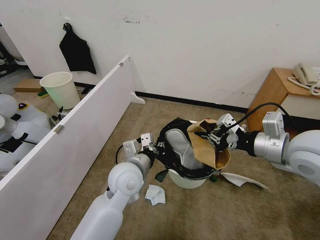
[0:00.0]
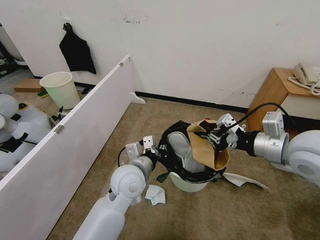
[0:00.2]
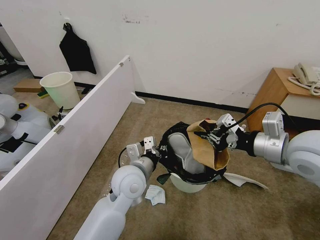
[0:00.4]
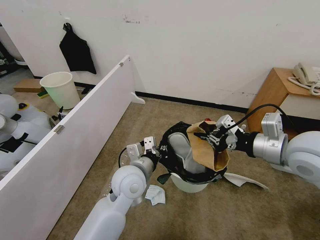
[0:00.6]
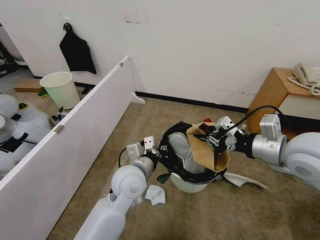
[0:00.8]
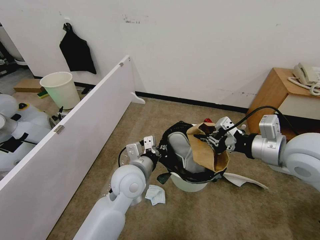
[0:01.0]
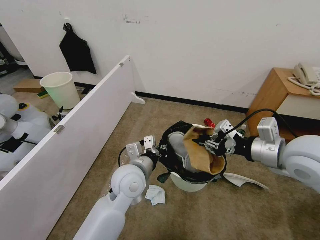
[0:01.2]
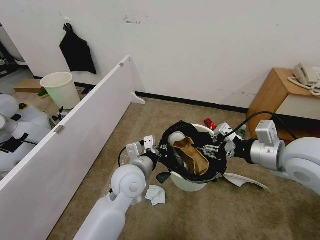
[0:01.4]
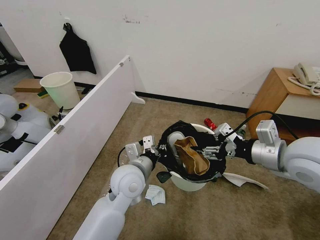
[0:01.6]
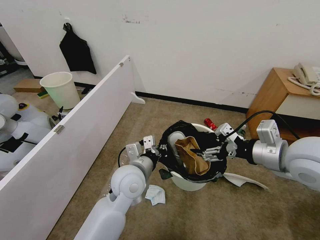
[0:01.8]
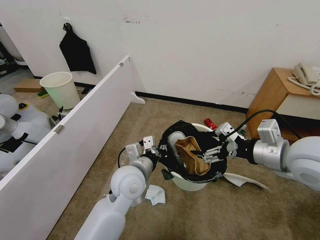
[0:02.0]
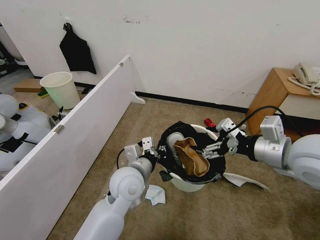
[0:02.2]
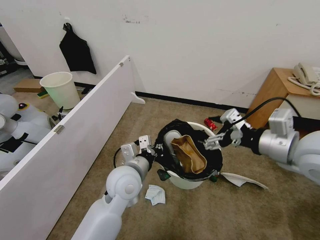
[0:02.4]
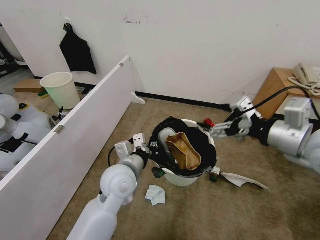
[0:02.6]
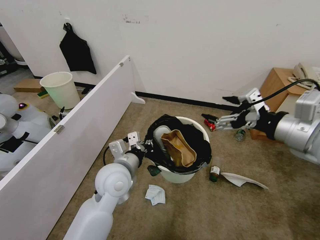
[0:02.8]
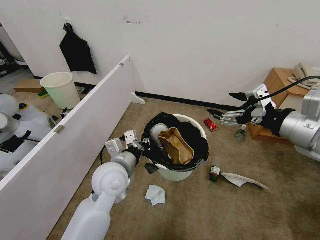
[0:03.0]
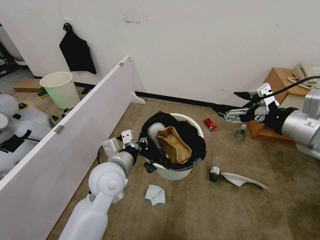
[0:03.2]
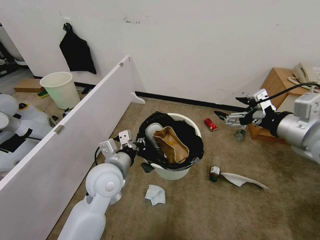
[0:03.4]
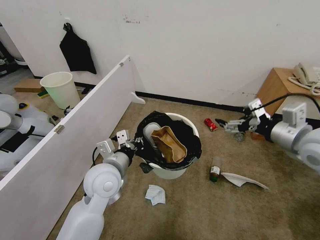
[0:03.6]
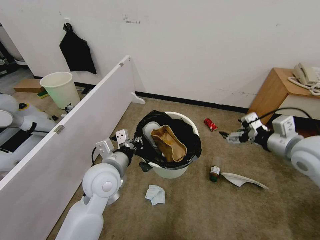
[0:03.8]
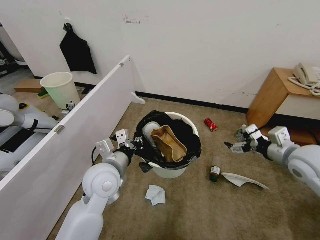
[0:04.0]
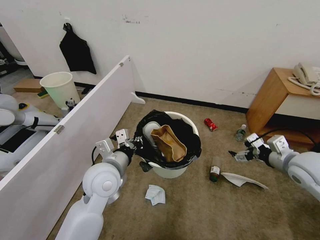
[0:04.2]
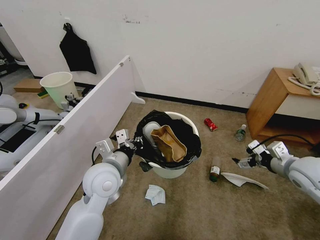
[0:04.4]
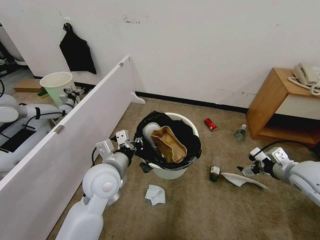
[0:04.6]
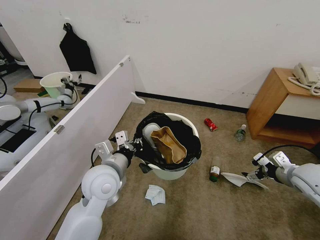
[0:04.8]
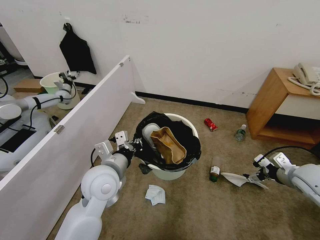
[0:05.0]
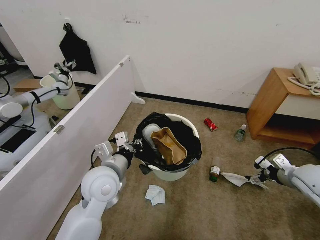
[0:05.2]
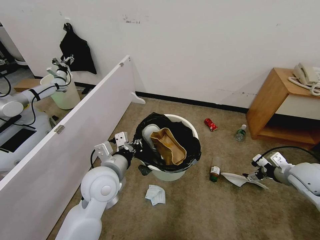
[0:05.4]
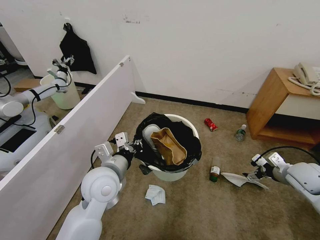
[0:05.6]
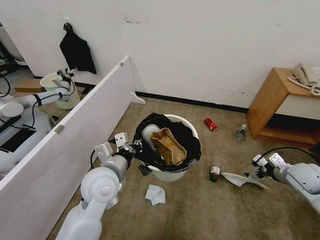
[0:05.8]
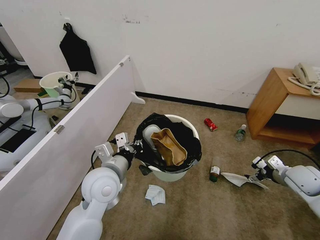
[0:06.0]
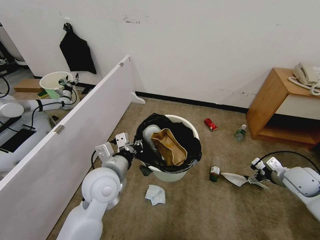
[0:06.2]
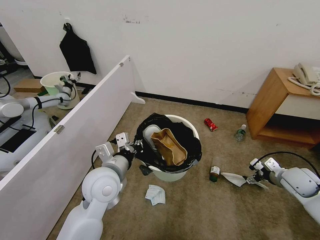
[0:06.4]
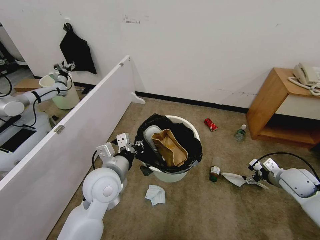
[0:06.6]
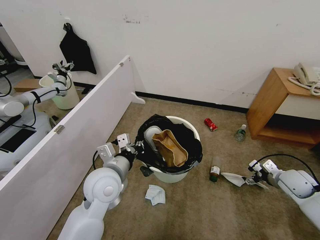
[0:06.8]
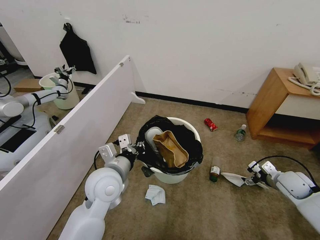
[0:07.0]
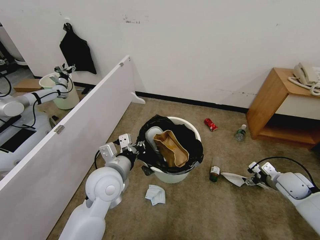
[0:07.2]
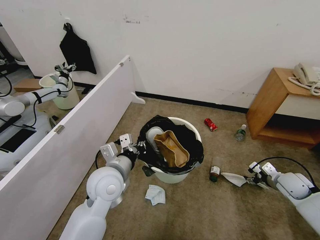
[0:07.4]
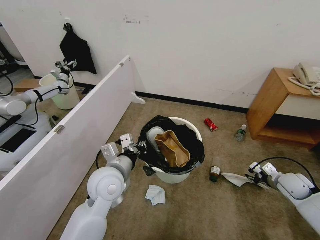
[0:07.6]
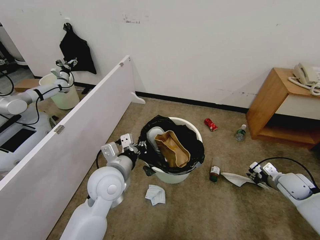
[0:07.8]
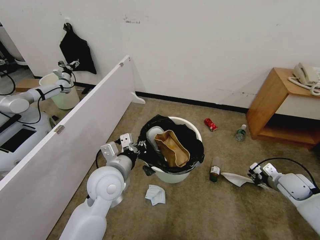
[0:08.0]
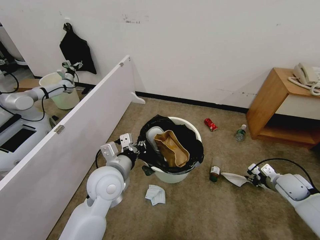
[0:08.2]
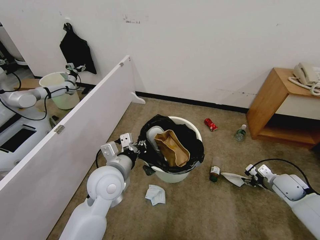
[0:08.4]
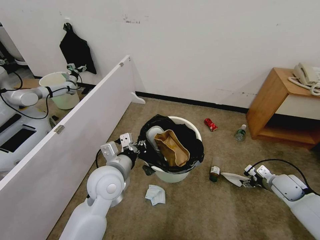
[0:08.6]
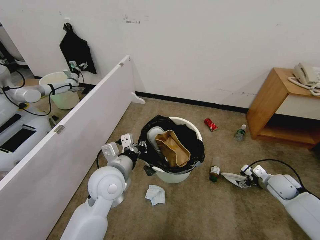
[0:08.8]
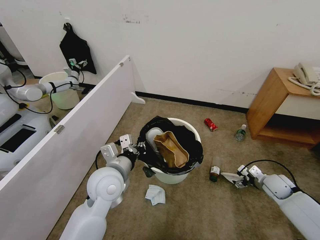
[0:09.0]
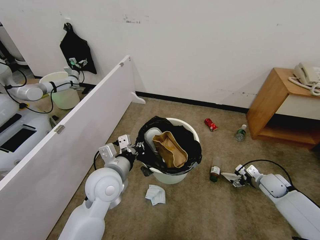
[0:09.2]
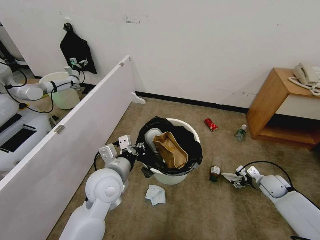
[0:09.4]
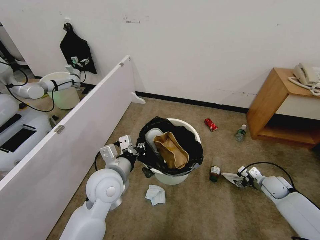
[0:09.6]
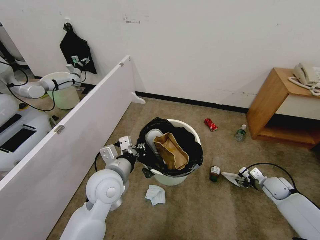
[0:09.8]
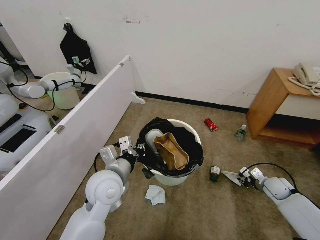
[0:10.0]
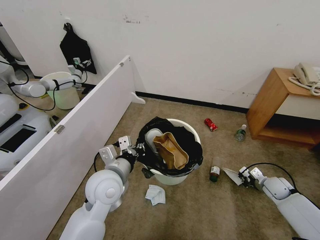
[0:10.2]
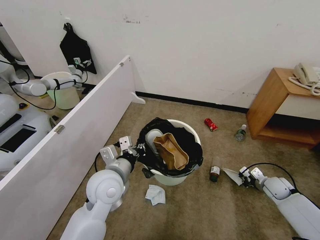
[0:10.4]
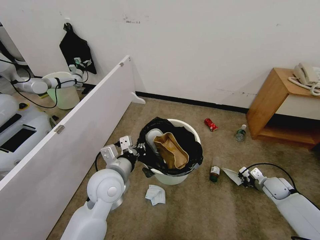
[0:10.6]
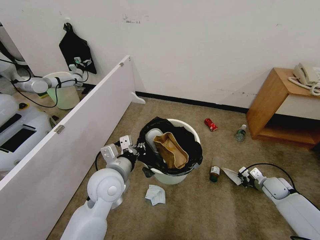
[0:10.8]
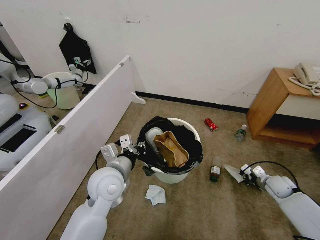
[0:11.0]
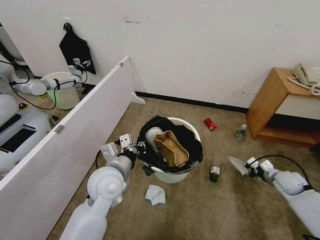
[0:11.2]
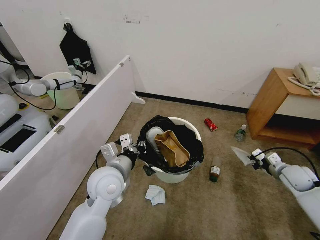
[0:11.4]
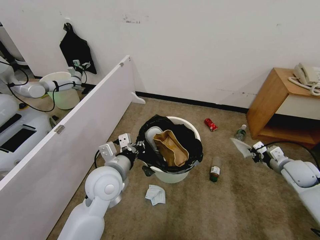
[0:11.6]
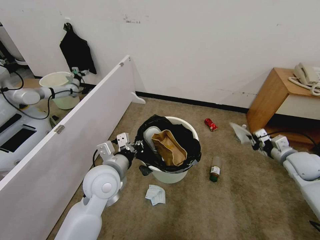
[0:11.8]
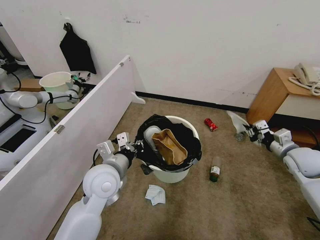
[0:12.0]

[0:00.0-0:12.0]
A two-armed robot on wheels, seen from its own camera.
Task of the whole recording: Pick up the trash bin, then pick up the garbage from the floor and place it into the trash bin.
0:00.0 to 0:01.6: The right gripper opens up.
0:01.6 to 0:03.0: The right gripper heads upward, covering approximately 5 cm, and opens up.
0:03.0 to 0:04.4: The right gripper goes about 20 cm downward and to the right.
0:04.4 to 0:06.0: The right gripper goes approximately 10 cm downward and to the right.
0:06.0 to 0:07.6: The right gripper travels downward by roughly 5 cm, and closes its fingers.
0:07.6 to 0:09.0: The right gripper opens its fingers.
0:09.0 to 0:10.4: The right gripper closes its fingers.
0:10.4 to 0:12.0: The right gripper moves upward, about 20 cm.

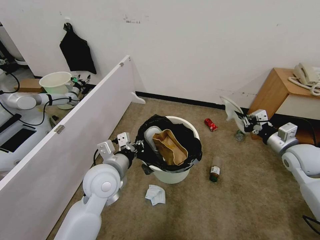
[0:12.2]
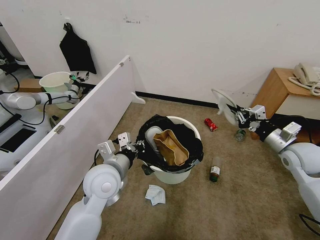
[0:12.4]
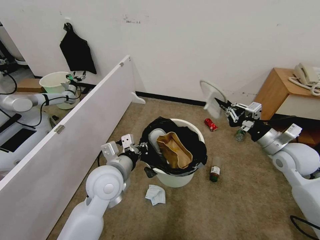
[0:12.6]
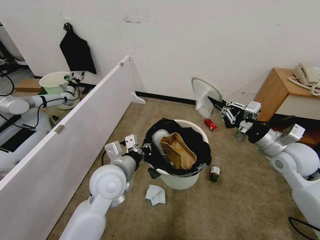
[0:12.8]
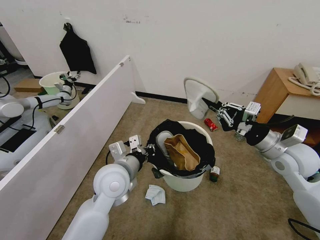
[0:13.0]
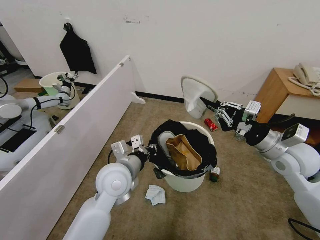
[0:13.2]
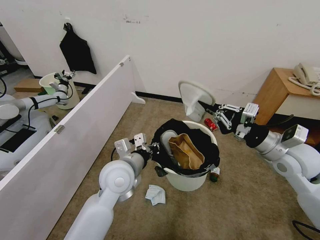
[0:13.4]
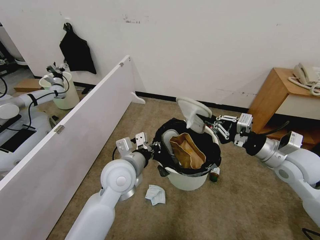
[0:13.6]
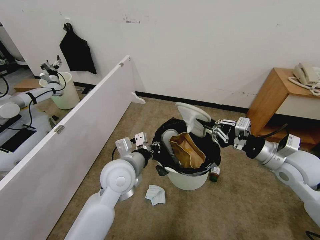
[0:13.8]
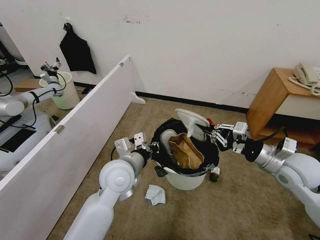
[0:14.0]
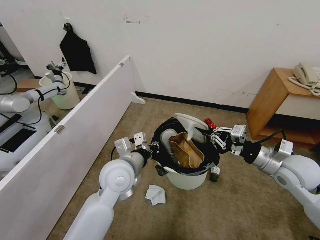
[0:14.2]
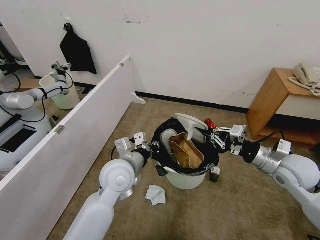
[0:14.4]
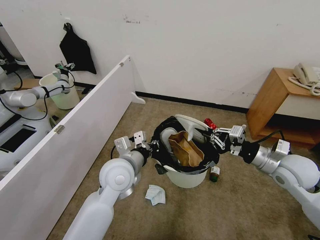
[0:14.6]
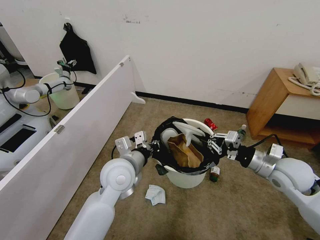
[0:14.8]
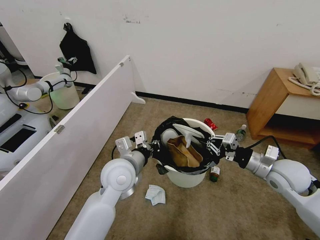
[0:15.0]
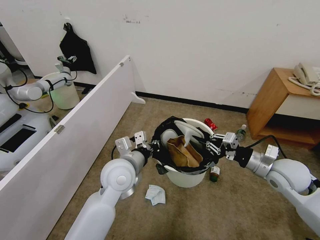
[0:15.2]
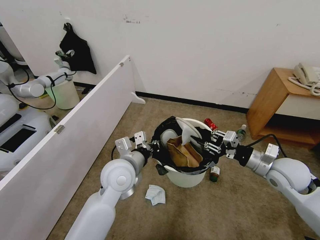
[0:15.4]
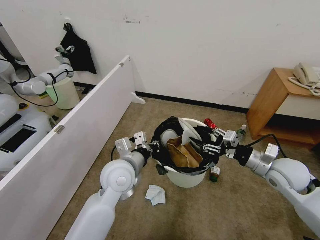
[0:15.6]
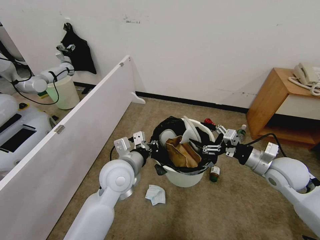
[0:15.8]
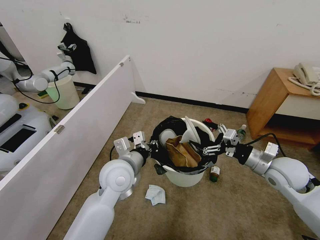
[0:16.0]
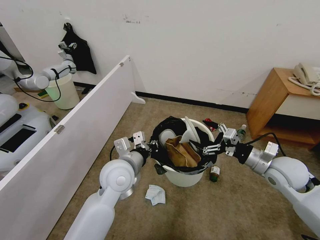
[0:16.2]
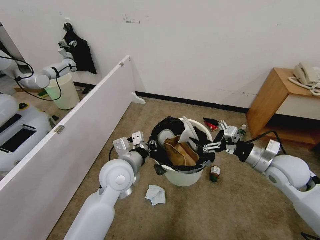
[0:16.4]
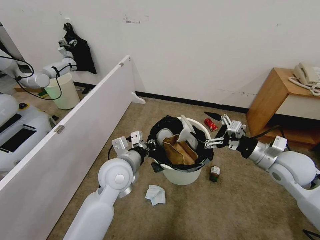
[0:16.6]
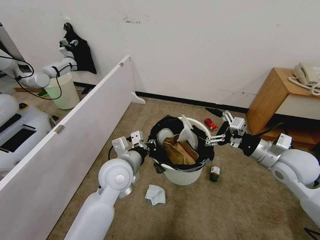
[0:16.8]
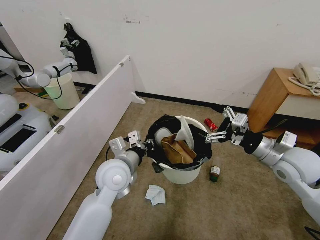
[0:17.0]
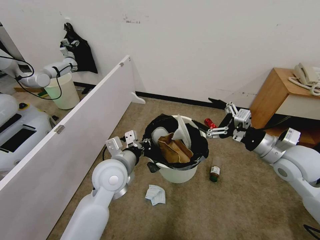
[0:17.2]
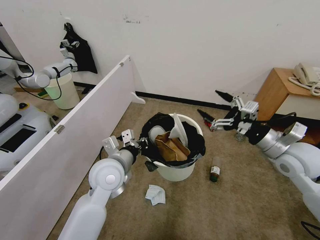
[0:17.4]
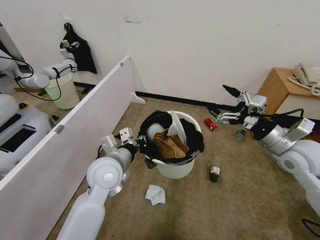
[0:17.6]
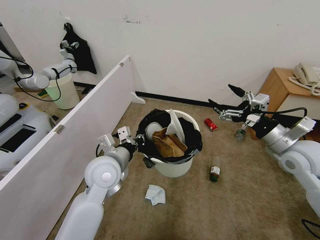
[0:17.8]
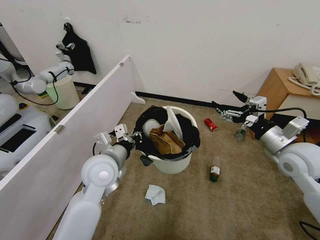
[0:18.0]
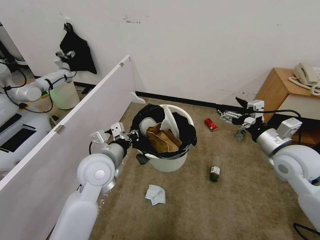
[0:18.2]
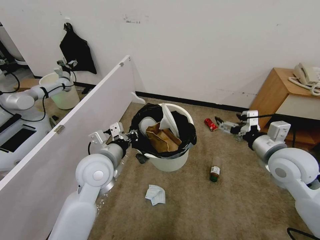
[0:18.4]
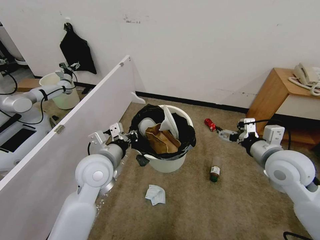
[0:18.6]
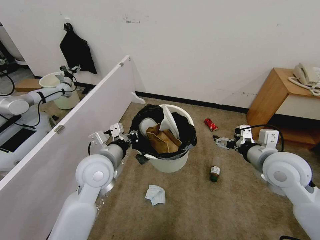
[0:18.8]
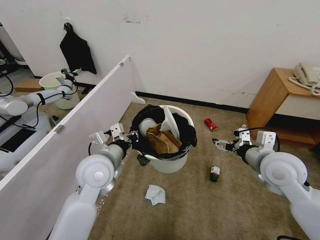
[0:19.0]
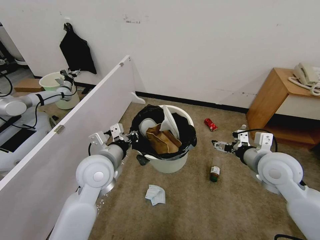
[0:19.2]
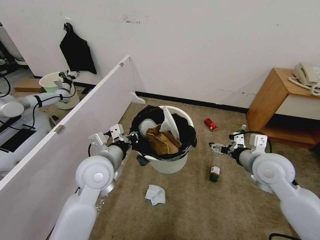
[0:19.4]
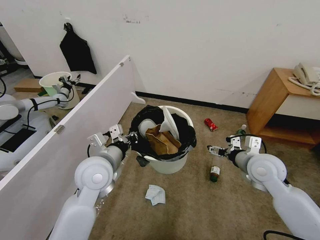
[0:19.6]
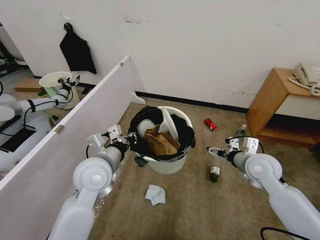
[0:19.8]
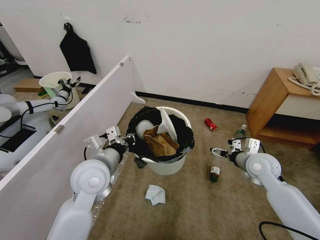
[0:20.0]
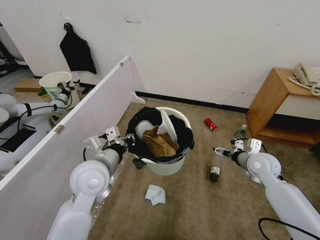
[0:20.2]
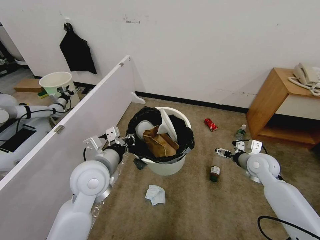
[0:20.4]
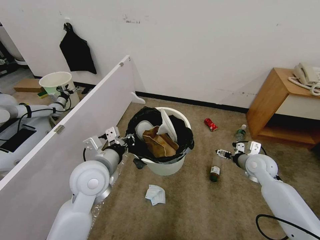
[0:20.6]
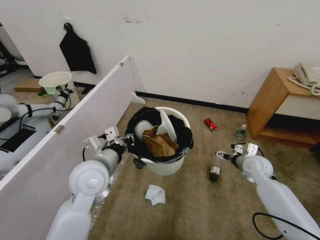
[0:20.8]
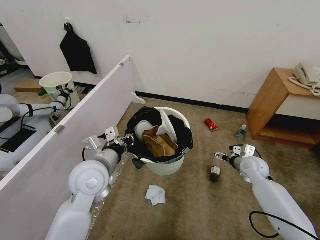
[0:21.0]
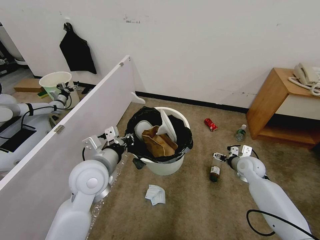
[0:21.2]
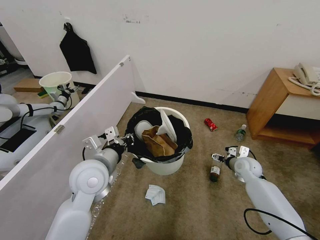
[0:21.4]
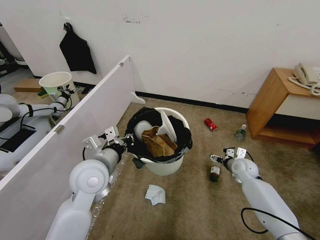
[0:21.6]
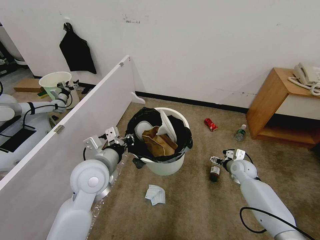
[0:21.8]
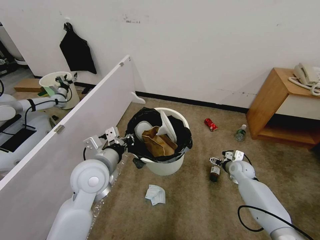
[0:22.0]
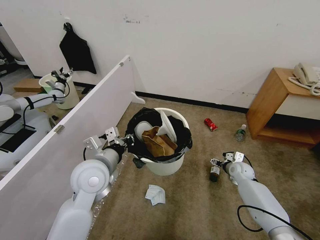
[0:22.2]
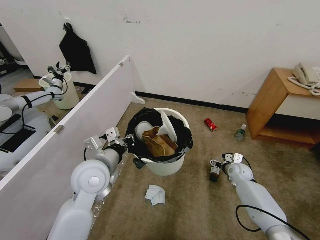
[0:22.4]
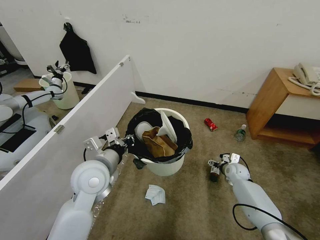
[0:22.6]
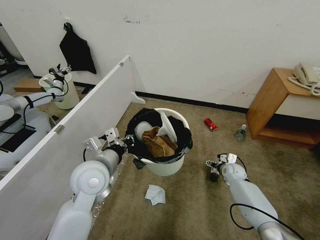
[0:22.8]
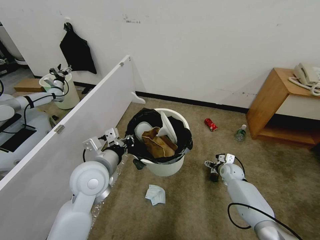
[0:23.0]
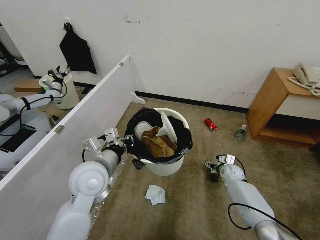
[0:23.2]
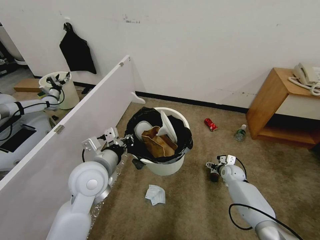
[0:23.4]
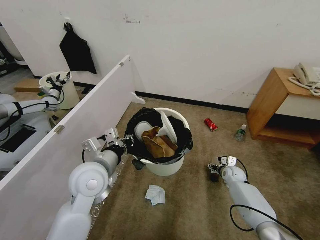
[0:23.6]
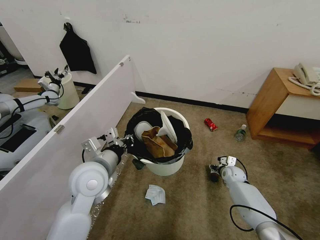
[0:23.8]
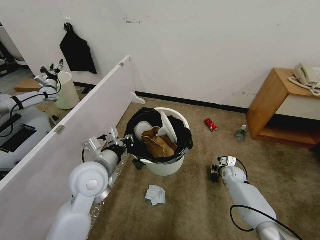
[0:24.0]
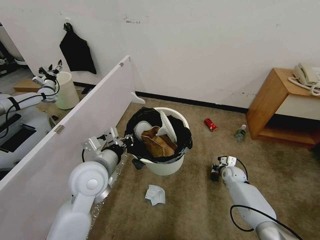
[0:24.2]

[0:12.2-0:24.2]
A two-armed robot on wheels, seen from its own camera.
Task of the whole recording: Pick up the trash bin, then pick up the garbage from the floor and place it into the trash bin.
0:12.2 to 0:13.8: The right gripper is displaced to the left by some 10 cm.
0:13.8 to 0:15.2: The right gripper travels downward by roughly 5 cm.
0:15.2 to 0:16.6: The right gripper opens its fingers.
0:16.6 to 0:18.2: The left gripper moves about 5 cm.
0:18.2 to 0:19.8: The right gripper goes about 10 cm downward.
0:19.8 to 0:21.2: The right gripper is displaced downward and forward by about 15 cm.
0:21.2 to 0:22.6: The right gripper heads downward, covering some 10 cm.
0:22.6 to 0:24.2: The right gripper closes up.
